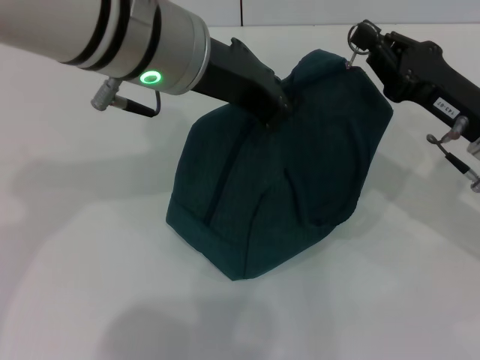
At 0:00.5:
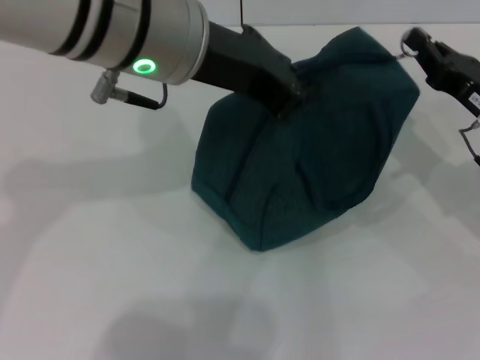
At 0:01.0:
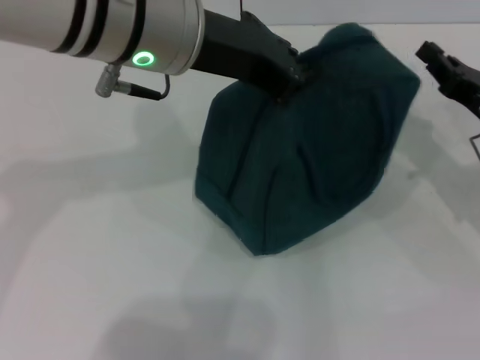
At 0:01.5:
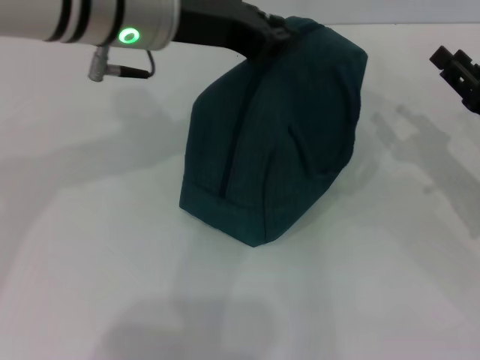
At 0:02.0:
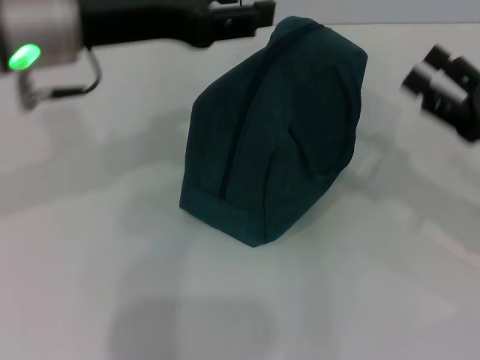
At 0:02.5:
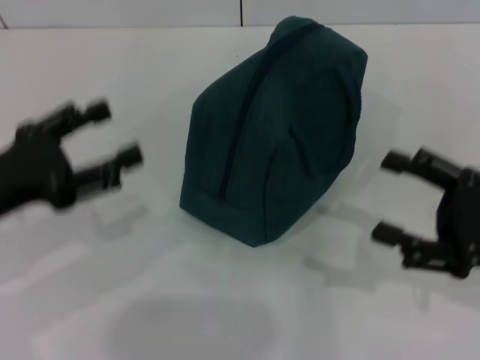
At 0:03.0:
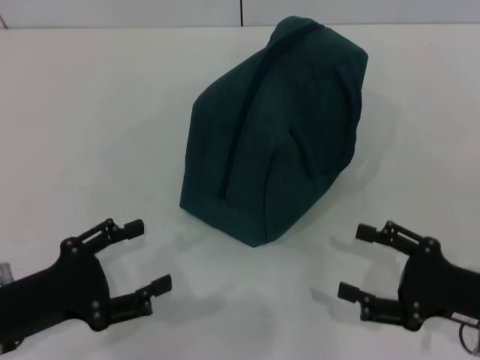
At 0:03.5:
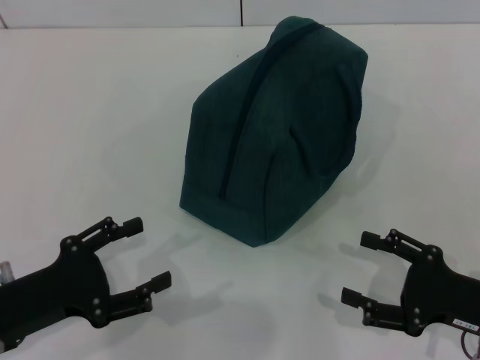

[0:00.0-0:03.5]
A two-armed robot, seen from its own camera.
Step, 0:01.0 to 0:01.5: Hold the lunch bag with your left hand.
0:00.0 to 0:02.0: The left gripper goes about 10 cm to the left, and opens, while the right gripper goes some 5 cm to the right, and opens up.
0:02.0 to 0:03.5: The left gripper moves downward, backward and to the left, roughly 25 cm, and opens up. The right gripper is displaced backward and downward by some 10 cm.

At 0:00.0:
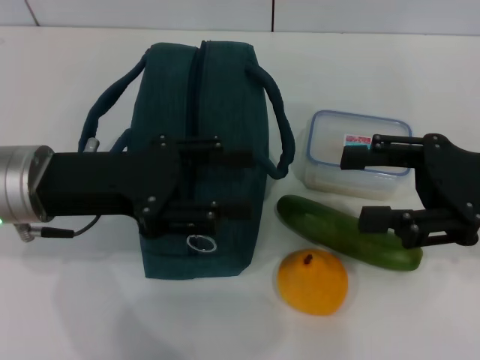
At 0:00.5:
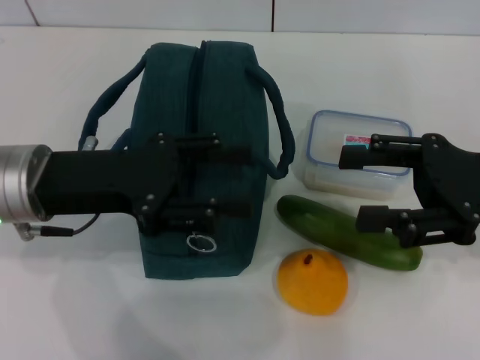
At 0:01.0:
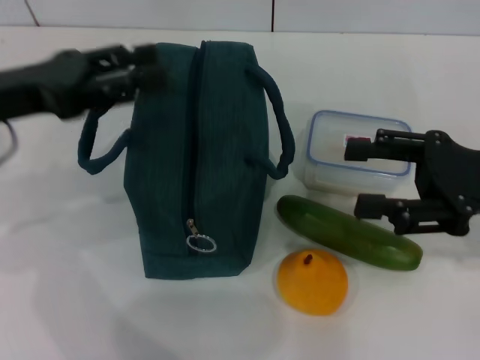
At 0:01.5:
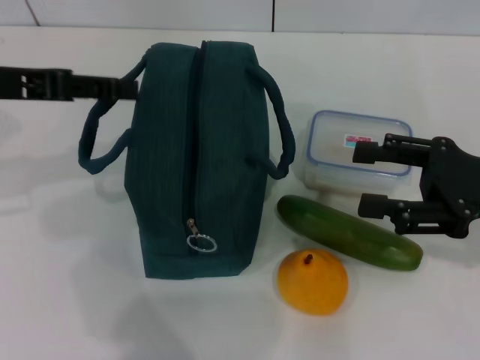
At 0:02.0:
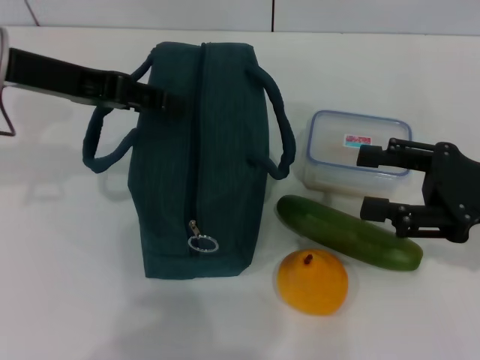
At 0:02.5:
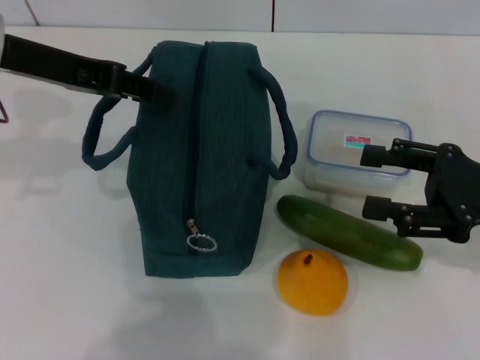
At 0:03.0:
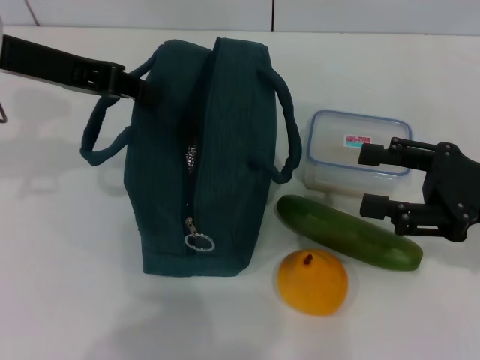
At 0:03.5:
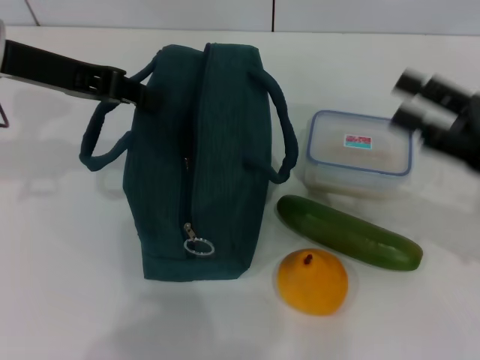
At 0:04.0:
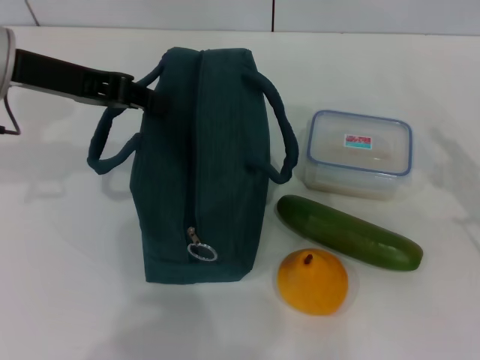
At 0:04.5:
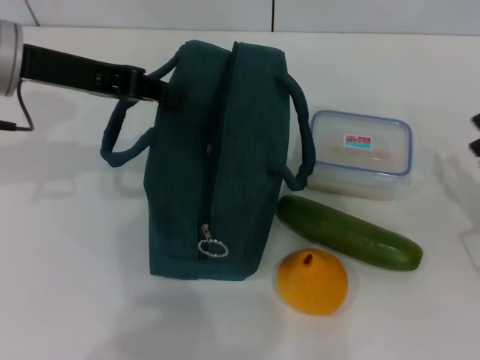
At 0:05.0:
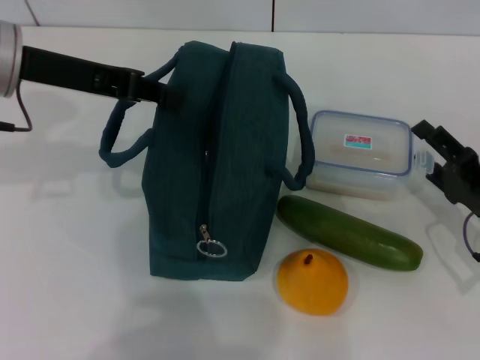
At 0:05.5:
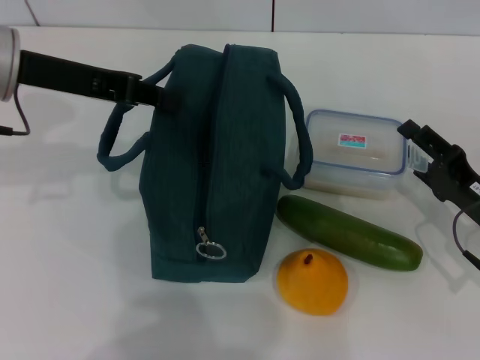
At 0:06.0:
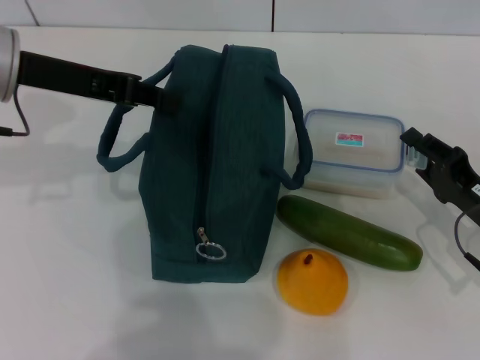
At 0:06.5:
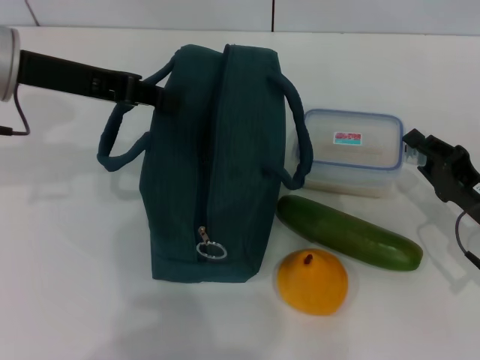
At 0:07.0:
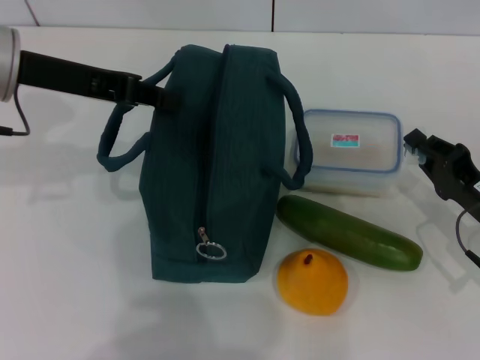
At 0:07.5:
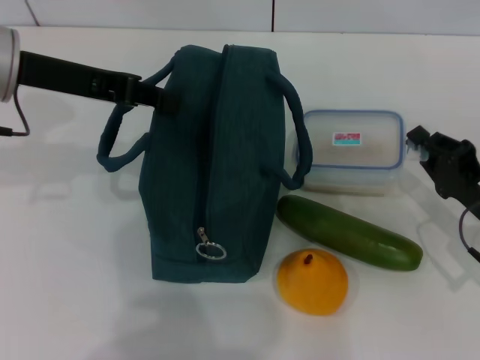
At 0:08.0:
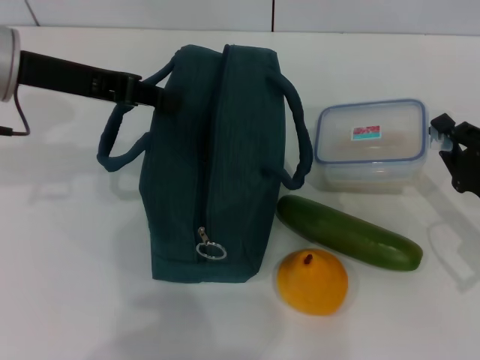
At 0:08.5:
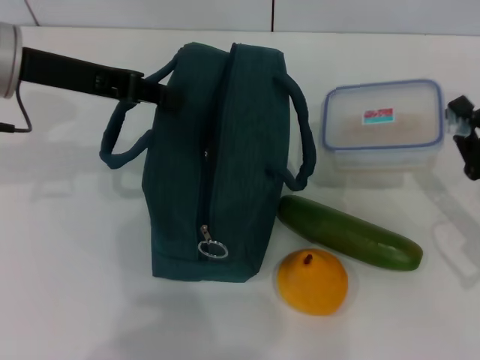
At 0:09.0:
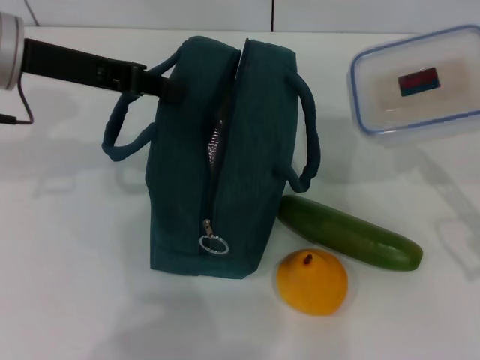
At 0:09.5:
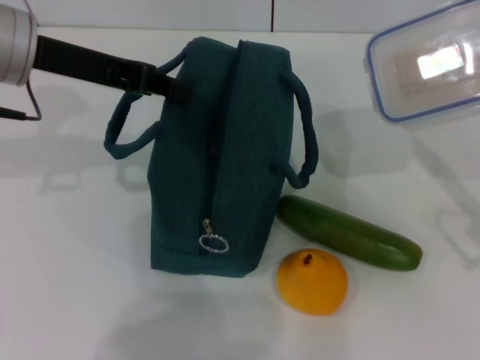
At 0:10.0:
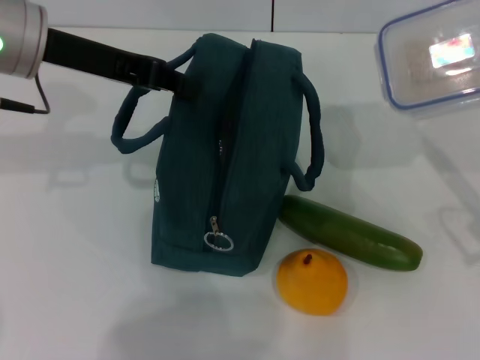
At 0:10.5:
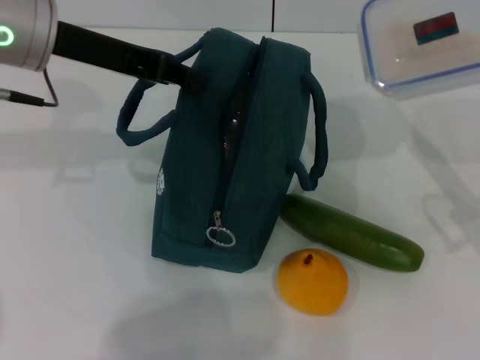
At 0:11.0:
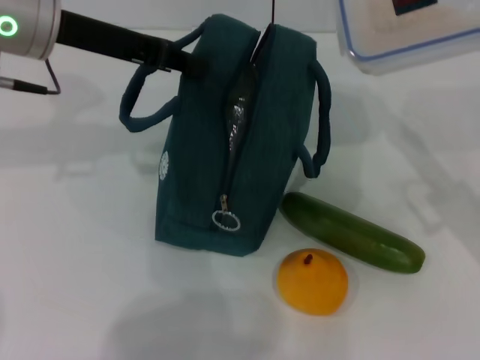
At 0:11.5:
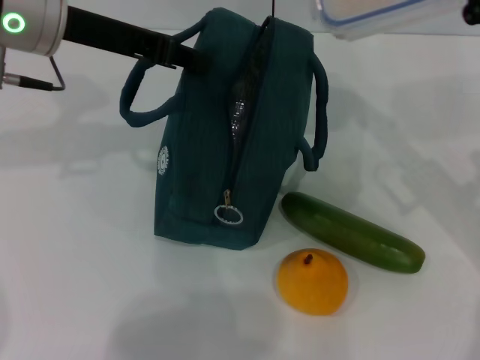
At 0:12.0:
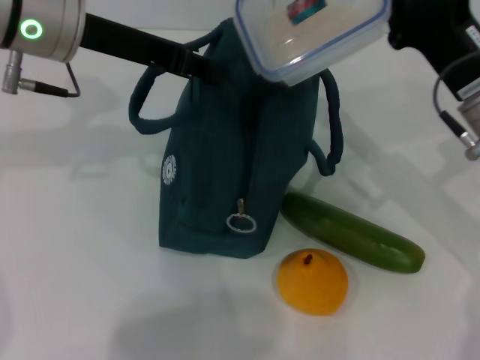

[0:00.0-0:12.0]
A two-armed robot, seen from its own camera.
Step, 0:00.0 to 0:02.5: Hold the lunch bag with your left hand.
Step, 0:03.5 to 0:07.0: Pick up the lunch box with your right hand.
0:00.0 to 0:02.0: The left gripper goes roughly 10 cm upward and forward.
0:02.0 to 0:04.0: The left gripper closes up; the right gripper goes about 5 cm downward.
0:04.0 to 0:06.0: The right gripper shifts by roughly 5 cm, and closes its fingers.
0:06.0 to 0:08.0: The right gripper closes up.
0:08.0 to 0:10.0: The right gripper travels upward by roughly 5 cm.
0:10.0 to 0:12.0: The right gripper travels to the left and forward by some 10 cm.

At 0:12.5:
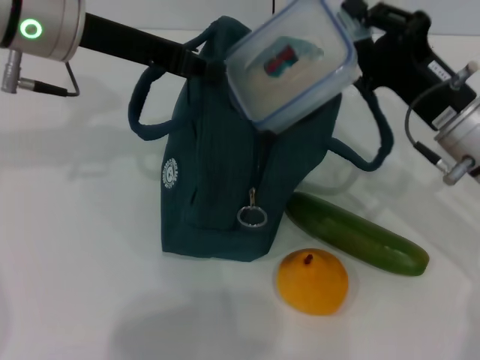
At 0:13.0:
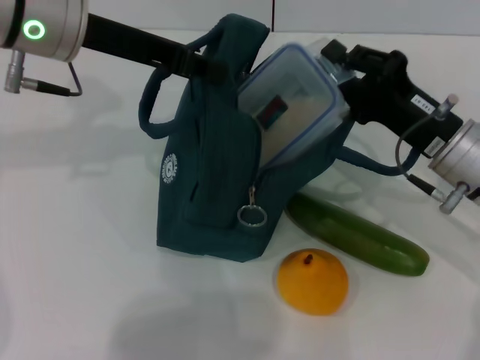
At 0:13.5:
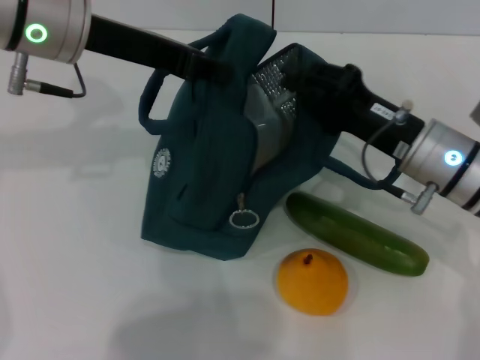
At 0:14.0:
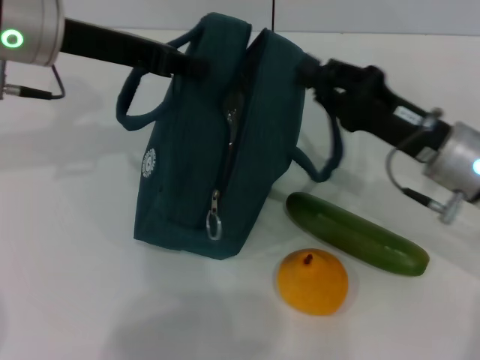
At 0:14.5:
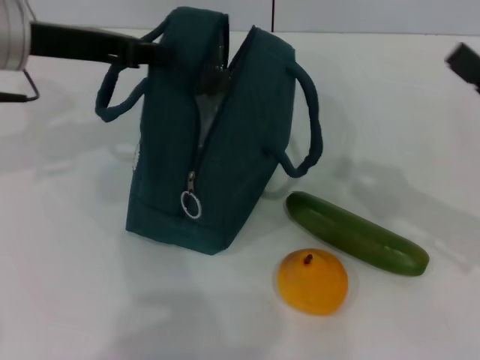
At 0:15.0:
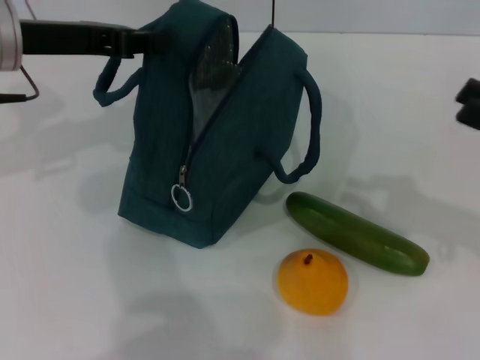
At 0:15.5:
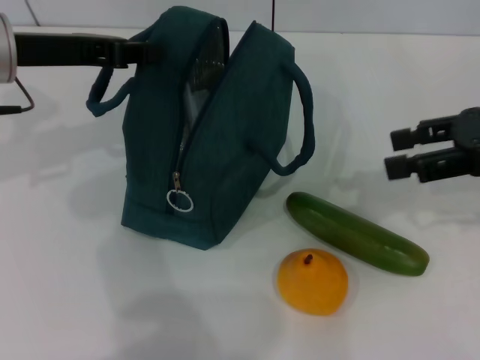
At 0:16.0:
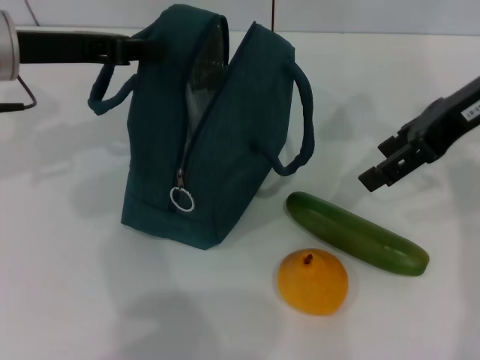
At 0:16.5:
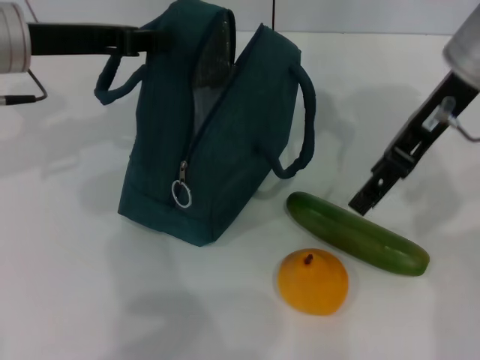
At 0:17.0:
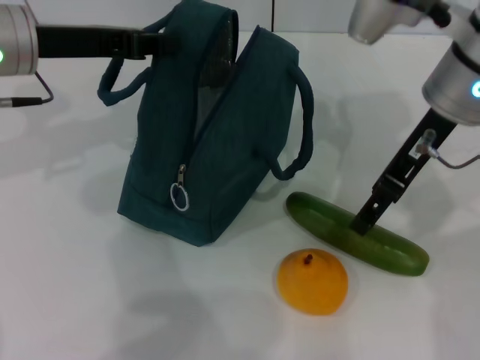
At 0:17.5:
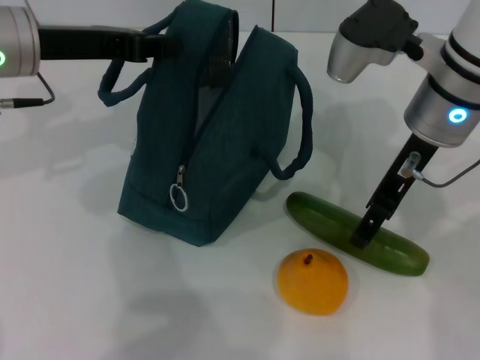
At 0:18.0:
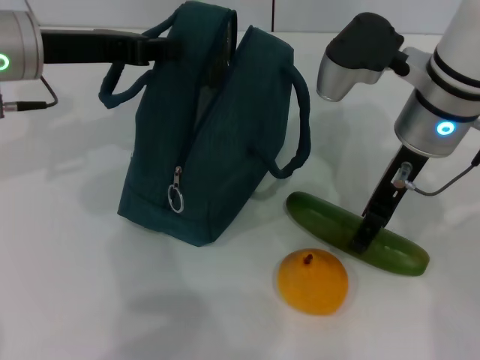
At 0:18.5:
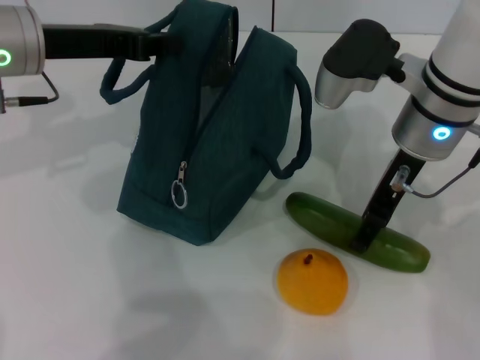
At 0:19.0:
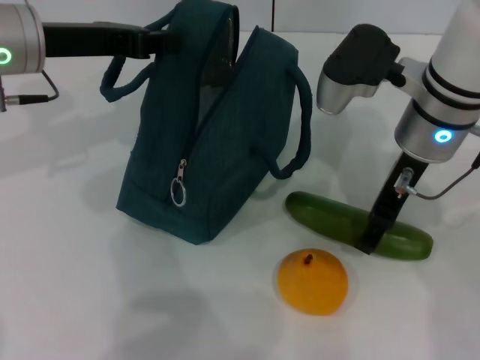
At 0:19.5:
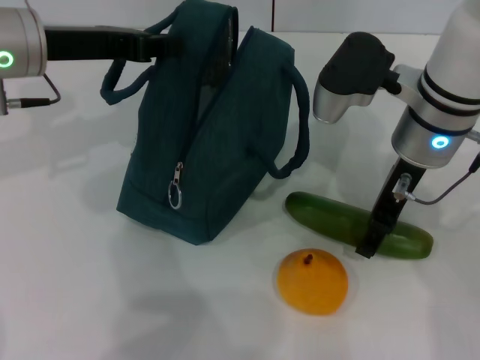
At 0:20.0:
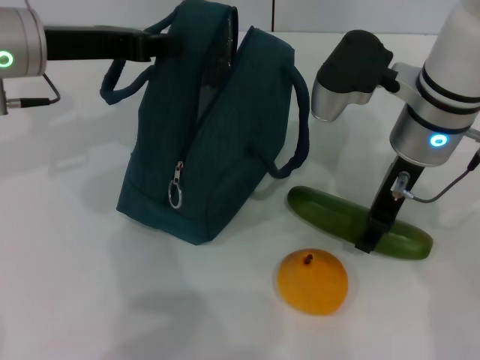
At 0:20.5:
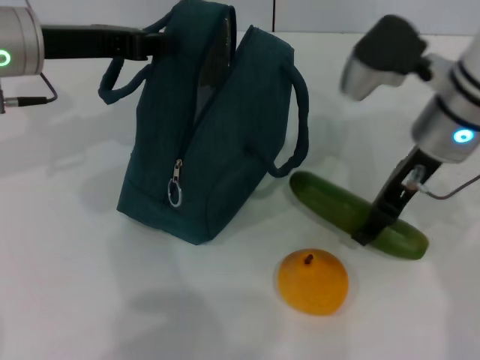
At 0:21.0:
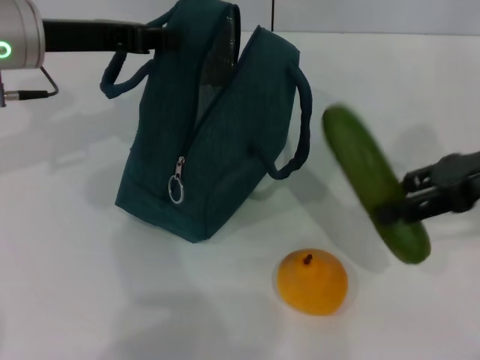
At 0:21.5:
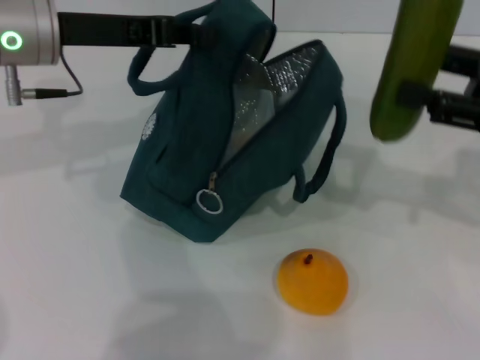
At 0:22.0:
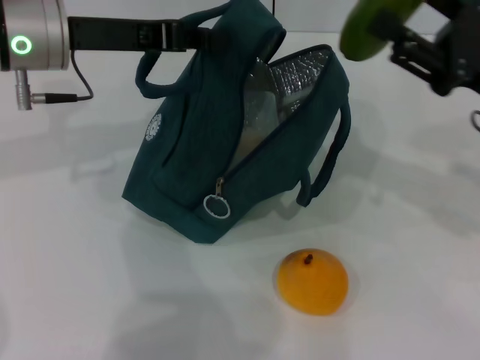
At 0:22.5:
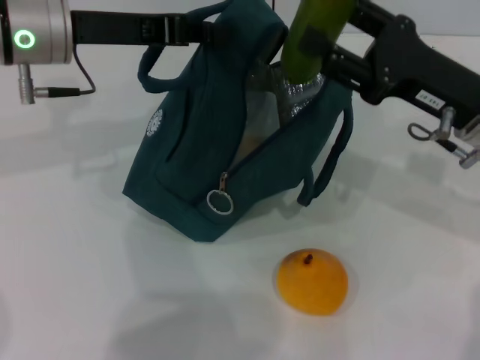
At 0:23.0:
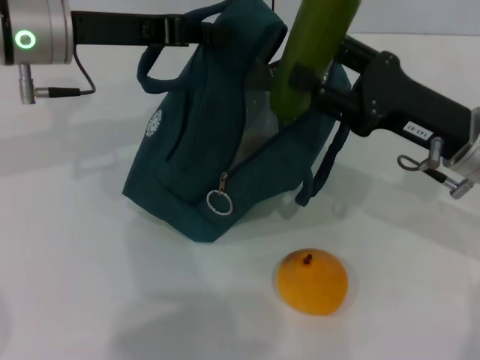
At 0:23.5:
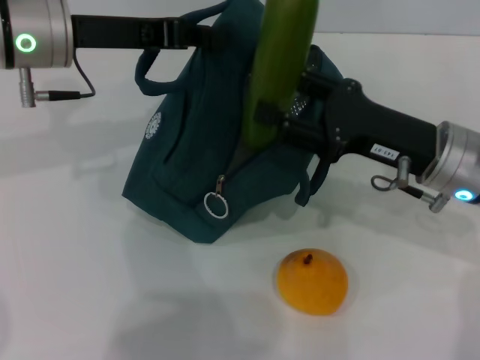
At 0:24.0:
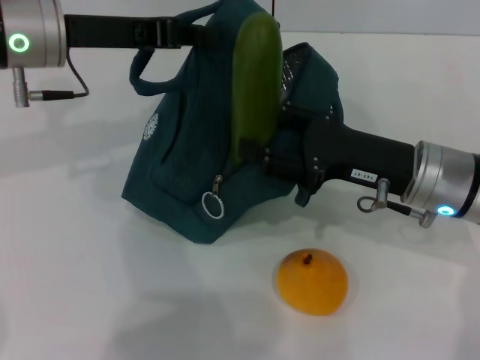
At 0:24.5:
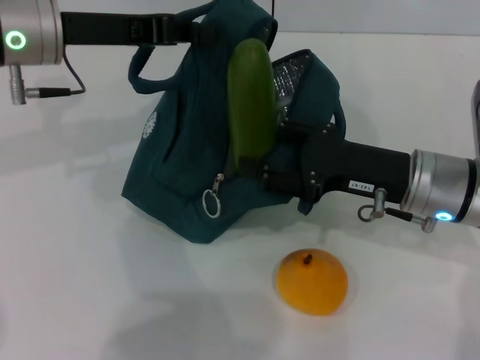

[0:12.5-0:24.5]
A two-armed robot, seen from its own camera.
Step, 0:14.0 to 0:20.0: Pick up the cucumber with your right hand.
0:12.5 to 0:14.5: The right gripper heads to the right and backward, covering approximately 10 cm. Meanwhile the left gripper moves to the left, approximately 5 cm.
0:14.5 to 0:16.5: The right gripper travels to the left, upward and forward by about 20 cm, and opens its fingers.
0:16.5 to 0:18.5: The right gripper heads downward, covering roughly 10 cm.
0:18.5 to 0:20.5: The grippers make only small movements.
0:20.5 to 0:22.5: The right gripper heads to the right, covering approximately 5 cm.
0:22.5 to 0:24.5: The right gripper changes place by some 5 cm.
